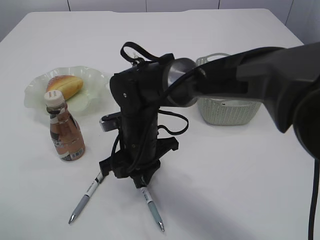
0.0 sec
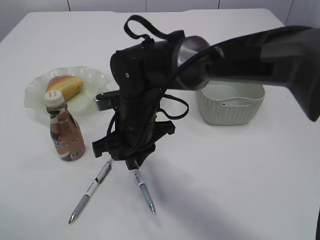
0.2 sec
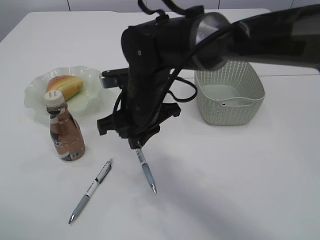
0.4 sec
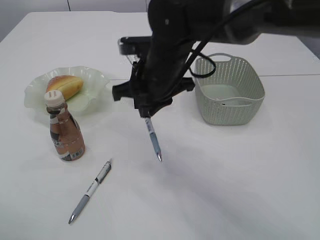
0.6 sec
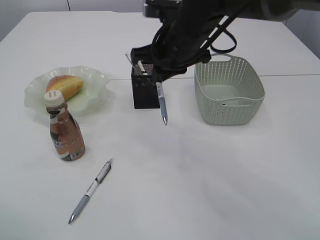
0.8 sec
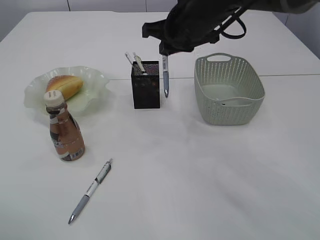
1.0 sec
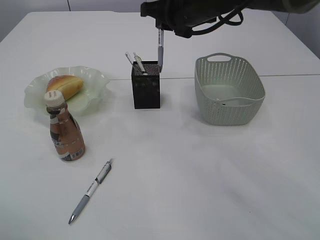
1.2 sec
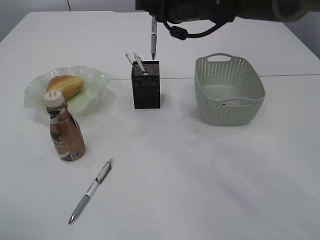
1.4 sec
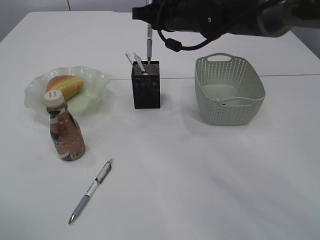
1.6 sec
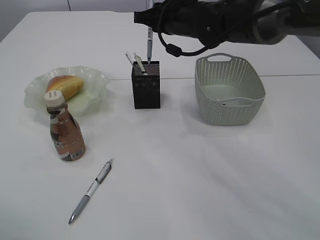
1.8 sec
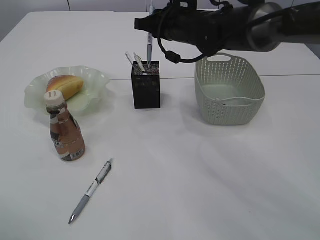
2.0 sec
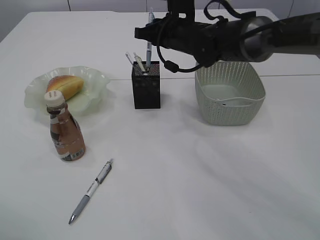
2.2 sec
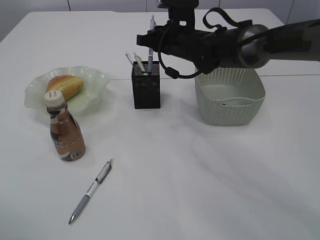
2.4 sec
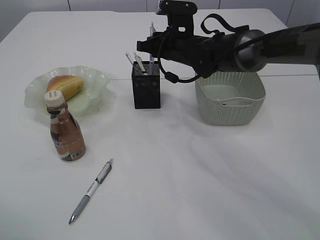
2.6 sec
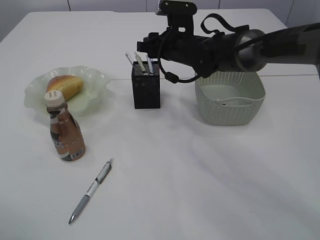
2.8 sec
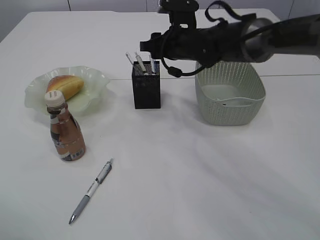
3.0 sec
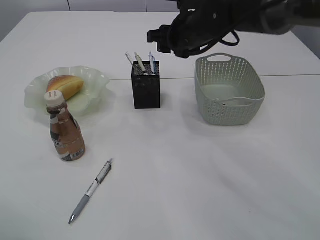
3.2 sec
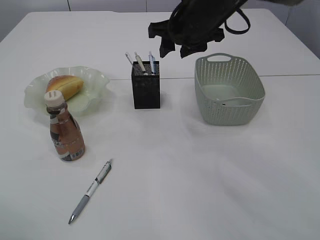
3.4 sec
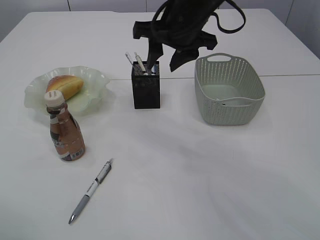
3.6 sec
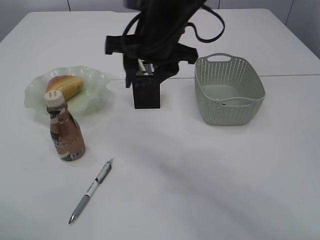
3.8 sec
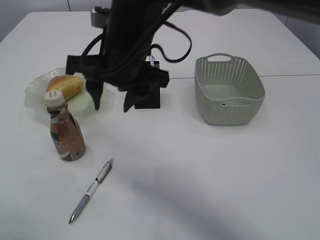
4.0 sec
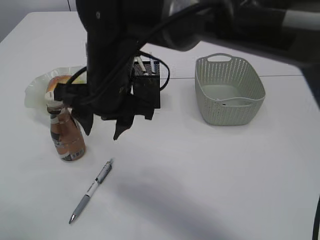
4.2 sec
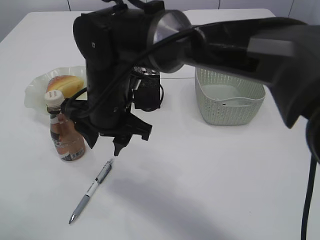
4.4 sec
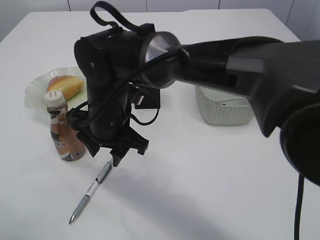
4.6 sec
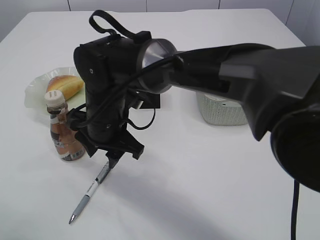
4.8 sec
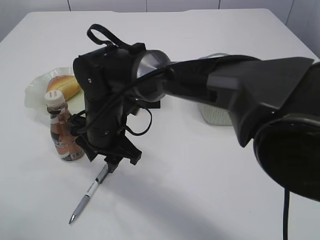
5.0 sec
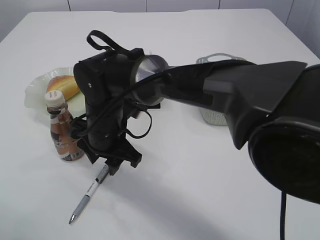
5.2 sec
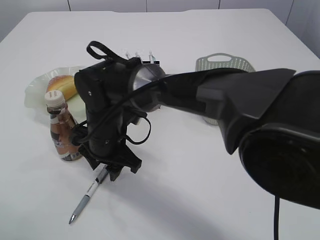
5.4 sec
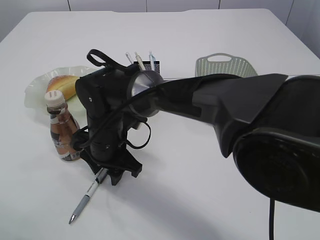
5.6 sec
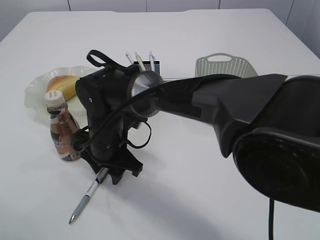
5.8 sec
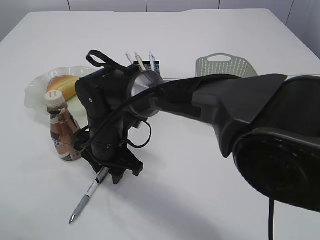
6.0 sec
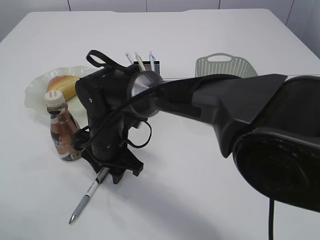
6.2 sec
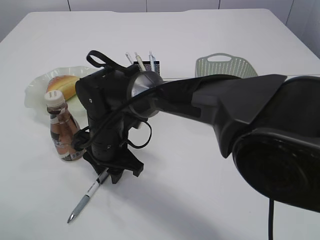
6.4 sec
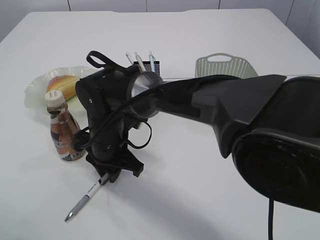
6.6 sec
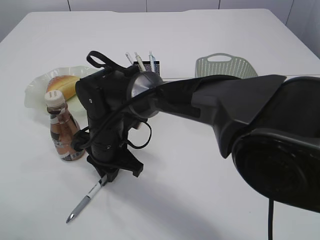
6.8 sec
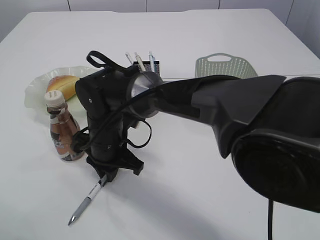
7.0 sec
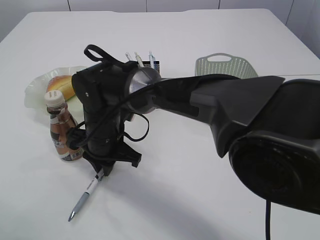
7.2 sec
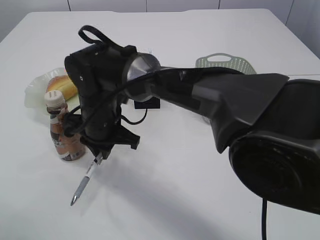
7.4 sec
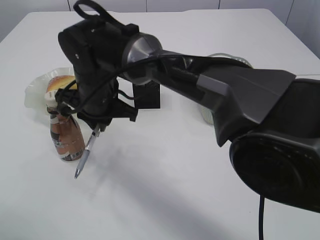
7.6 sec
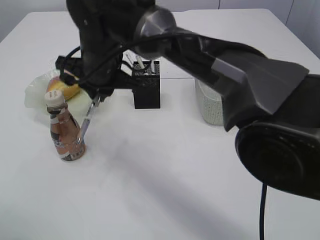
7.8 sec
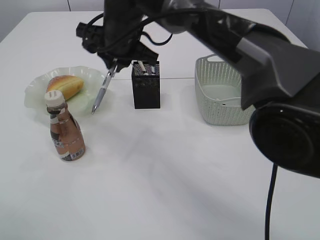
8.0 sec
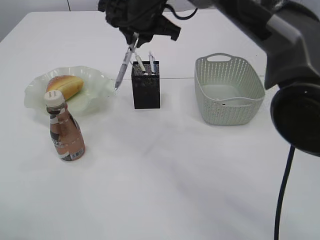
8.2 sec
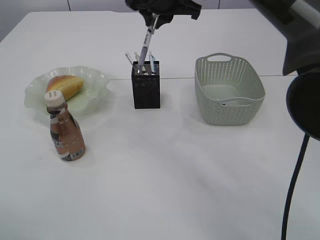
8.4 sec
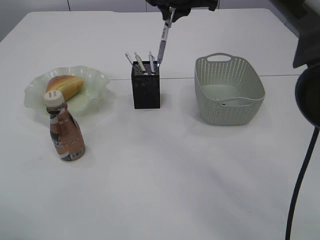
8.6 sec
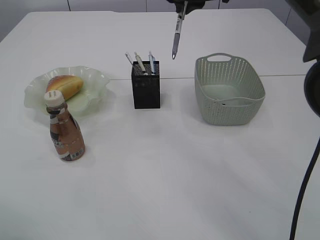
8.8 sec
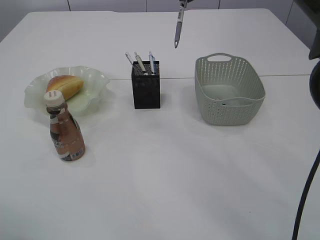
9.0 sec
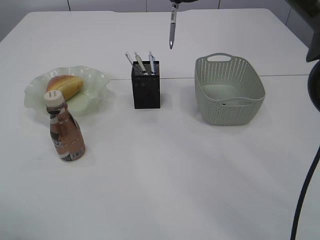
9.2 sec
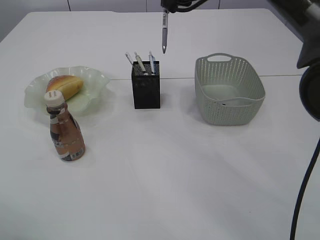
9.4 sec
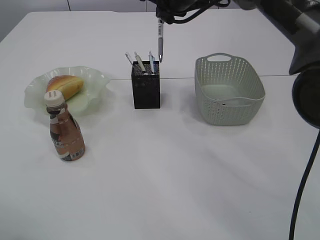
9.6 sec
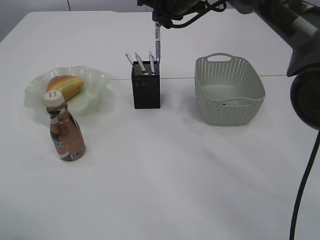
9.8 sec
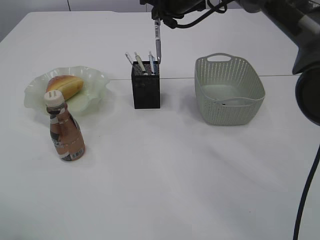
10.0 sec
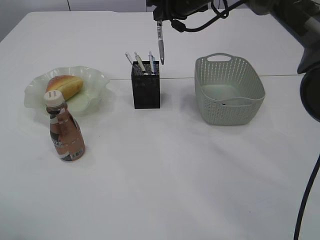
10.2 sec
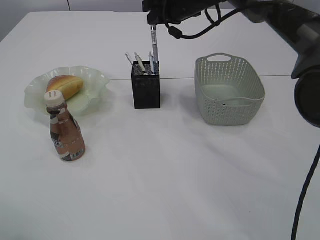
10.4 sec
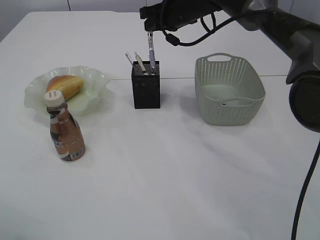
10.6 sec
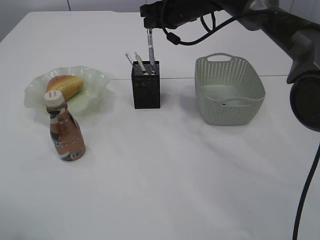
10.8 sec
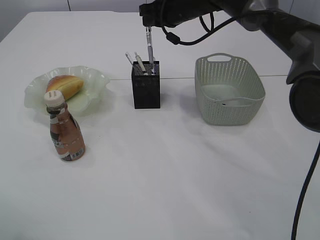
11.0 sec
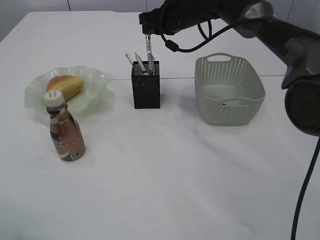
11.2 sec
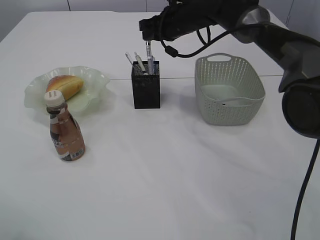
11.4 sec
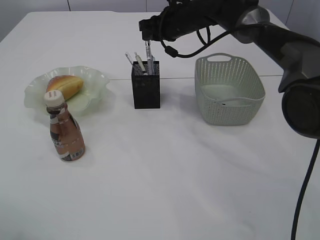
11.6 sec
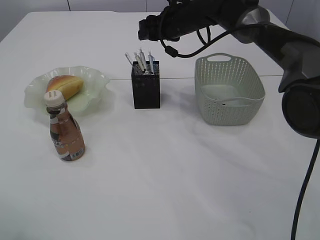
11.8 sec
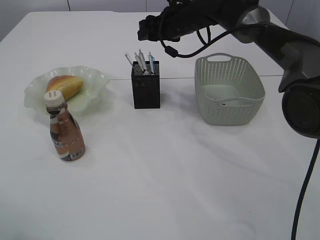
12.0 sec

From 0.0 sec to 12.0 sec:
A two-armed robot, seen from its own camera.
Step, from 0.4 sec to 3.2 sec: Place the pen into the pen holder.
Step, from 3.4 sec to 7.6 sec: Pick up the pen with right arm.
From 0.0 sec to 1.6 sec: The right gripper shifts some 20 cm upward, forward and to the right.
From 1.6 sec to 3.0 sec: The right gripper travels downward by approximately 5 cm, and opens its fingers.
From 3.0 sec to 4.4 sec: The right gripper heads backward and to the left, covering approximately 20 cm.
From 4.4 sec to 6.0 sec: The right gripper goes some 10 cm downward.
From 6.0 sec to 7.6 sec: The right gripper heads upward, covering about 5 cm, and closes up.
From 7.6 sec to 9.0 sec: The right gripper heads to the right, upward and forward, covering some 30 cm.
From 9.0 sec to 10.4 sec: The right gripper moves downward, some 5 cm.
From 10.4 sec to 12.0 sec: The right gripper opens.

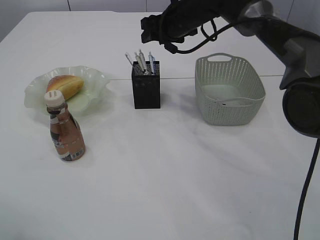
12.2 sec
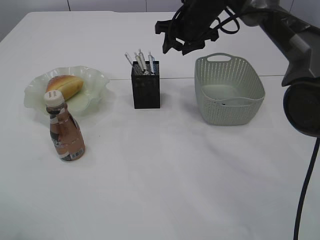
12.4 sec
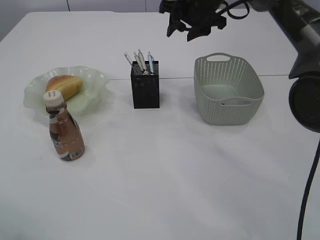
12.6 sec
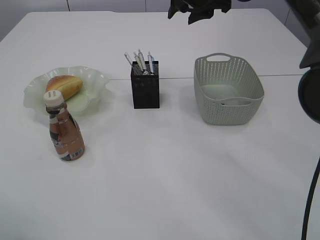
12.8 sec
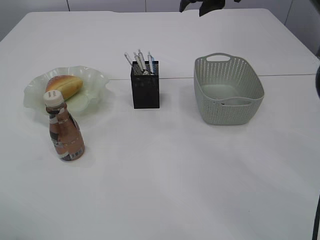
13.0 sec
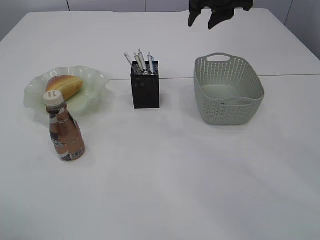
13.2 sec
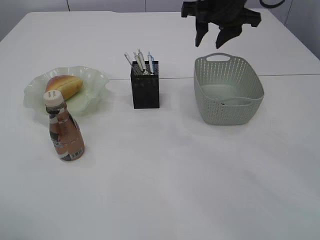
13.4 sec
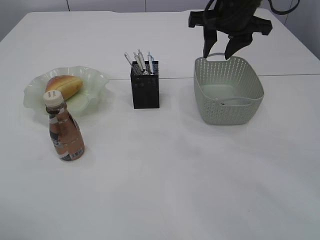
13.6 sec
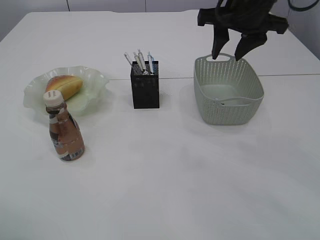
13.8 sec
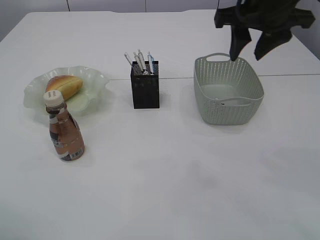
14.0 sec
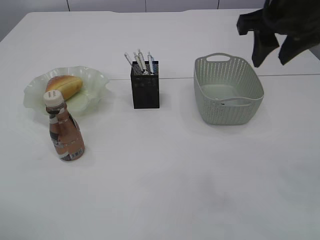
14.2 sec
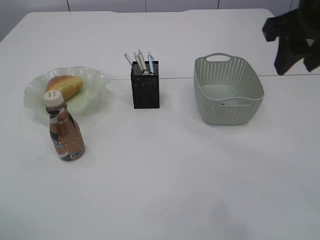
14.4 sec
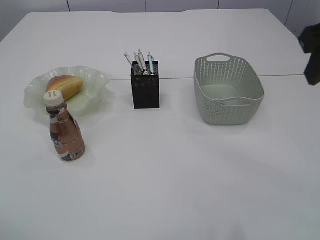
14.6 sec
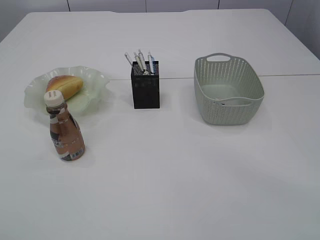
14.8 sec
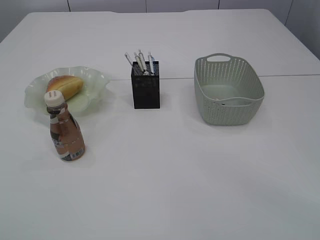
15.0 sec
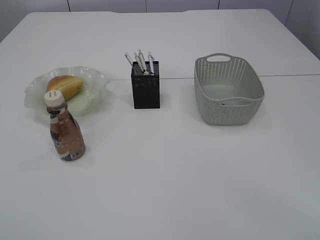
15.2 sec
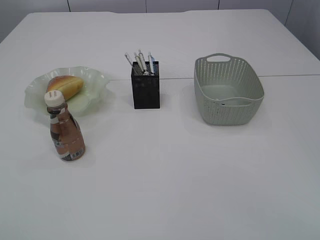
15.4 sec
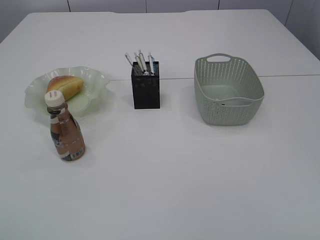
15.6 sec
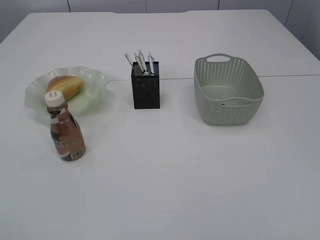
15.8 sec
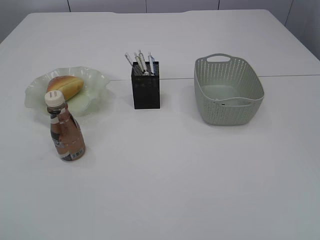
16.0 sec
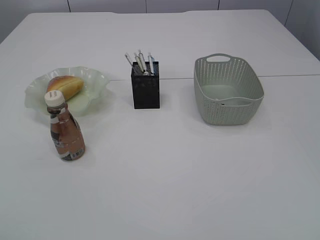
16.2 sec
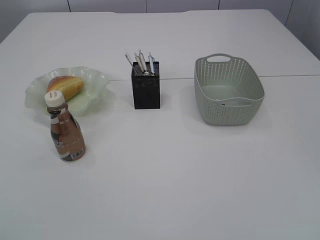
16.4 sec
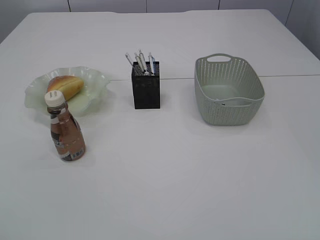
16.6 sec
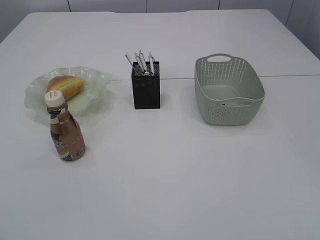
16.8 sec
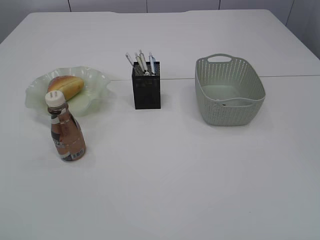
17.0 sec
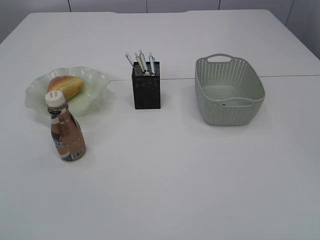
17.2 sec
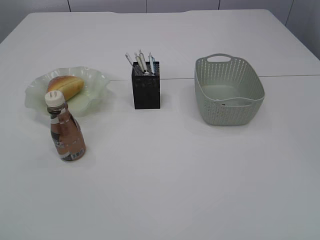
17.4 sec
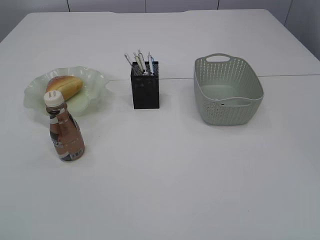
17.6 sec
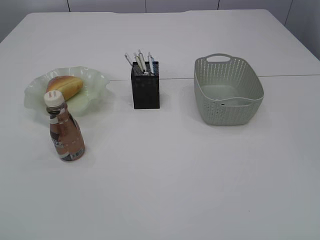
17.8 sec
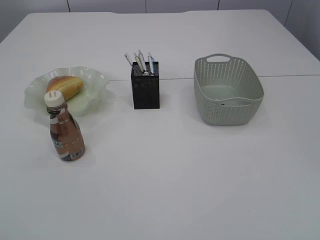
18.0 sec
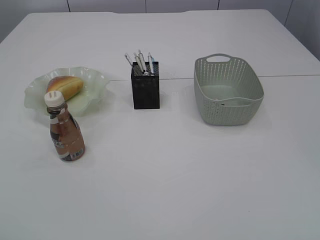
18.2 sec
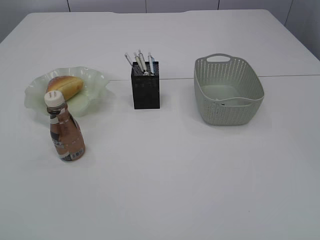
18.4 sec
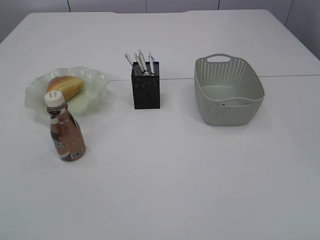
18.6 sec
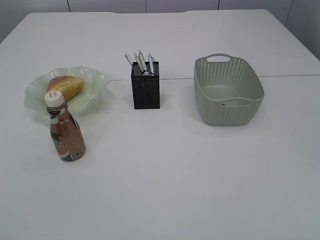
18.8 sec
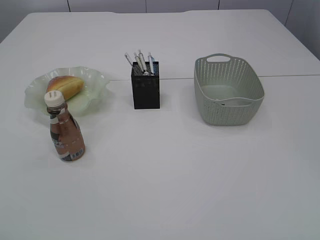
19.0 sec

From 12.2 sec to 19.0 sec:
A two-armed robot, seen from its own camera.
From 12.2 sec to 13.6 sec: The right gripper travels backward, upward and to the right by some 15 cm.
From 13.6 sec to 15.0 sec: The right gripper travels backward by roughly 30 cm; the left gripper is displaced backward by roughly 10 cm.

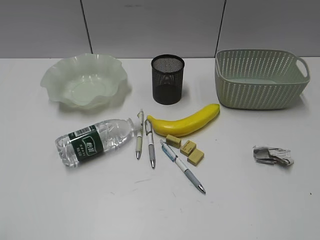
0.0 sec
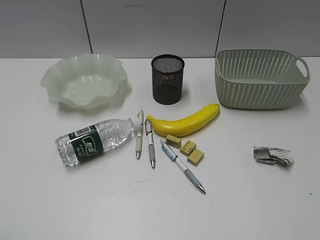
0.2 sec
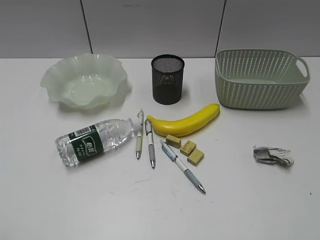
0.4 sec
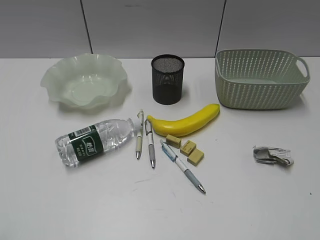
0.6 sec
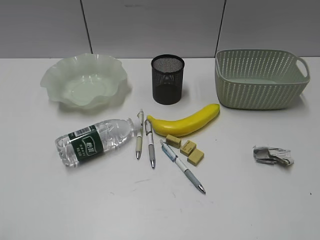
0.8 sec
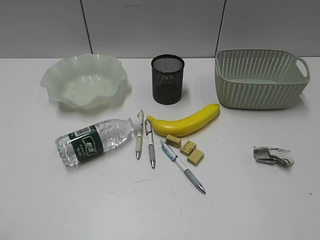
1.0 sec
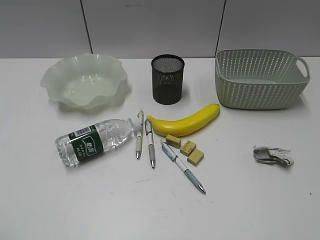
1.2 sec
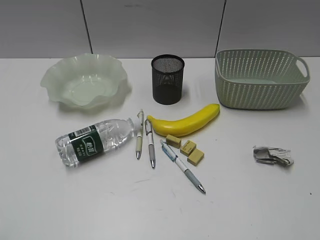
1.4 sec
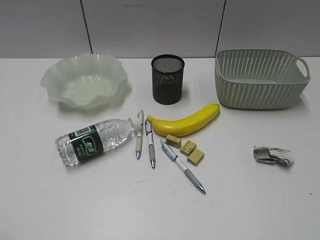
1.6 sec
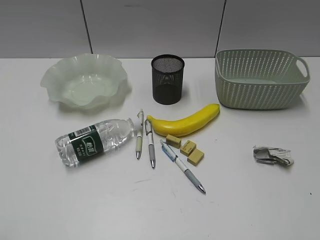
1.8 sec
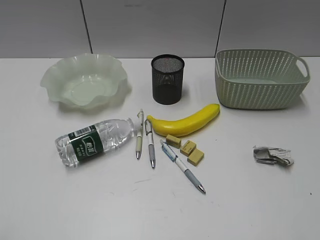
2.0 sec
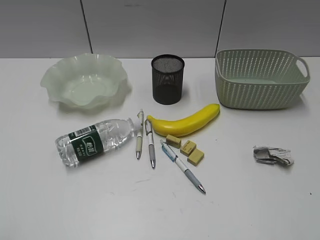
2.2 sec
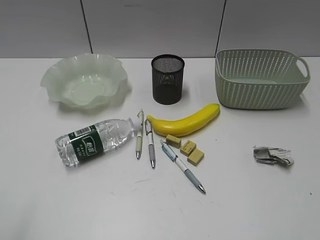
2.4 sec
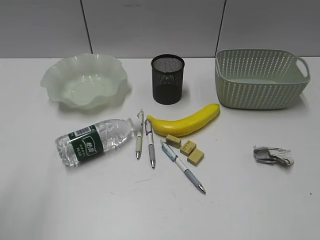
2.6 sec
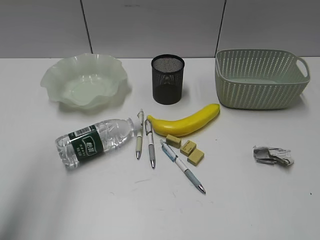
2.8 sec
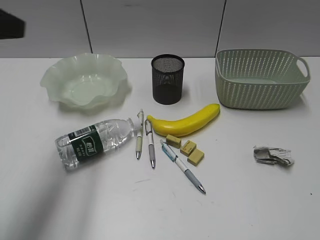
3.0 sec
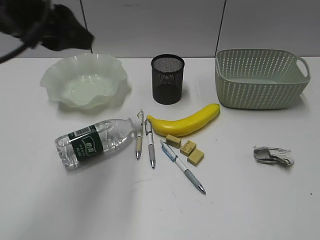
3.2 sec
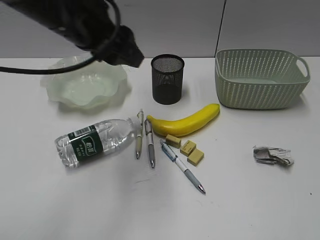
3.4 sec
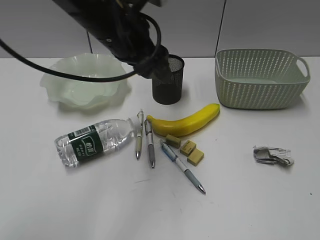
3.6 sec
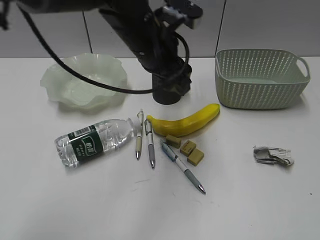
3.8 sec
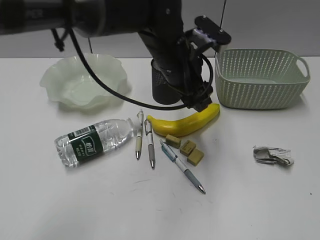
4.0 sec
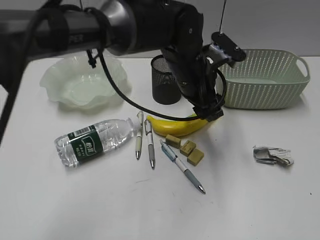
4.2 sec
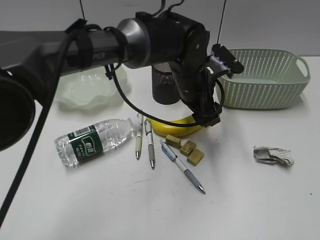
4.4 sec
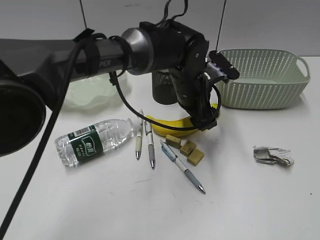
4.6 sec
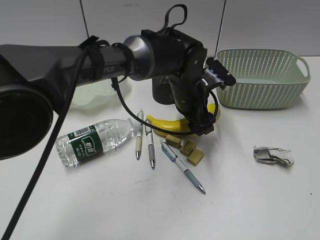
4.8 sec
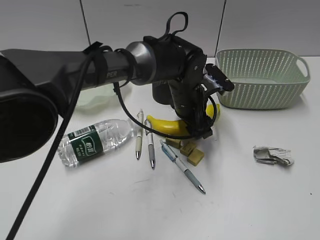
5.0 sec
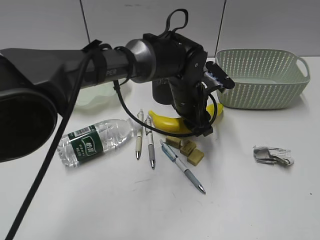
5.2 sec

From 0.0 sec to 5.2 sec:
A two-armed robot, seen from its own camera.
Step, from 2.2 sec to 5.0 sec: Grasp the banana with left gripper.
From 1.8 sec to 3.4 sec: The left gripper goes roughly 35 cm forward and to the right.
From 3.4 sec to 5.2 sec: The left gripper heads downward and to the right, covering approximately 25 cm.
